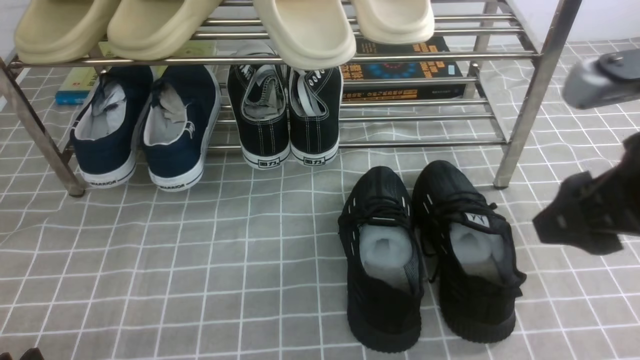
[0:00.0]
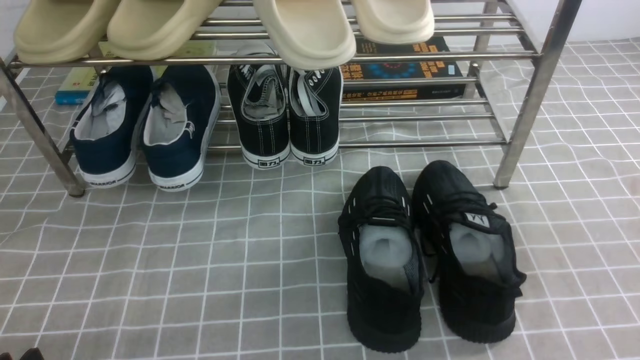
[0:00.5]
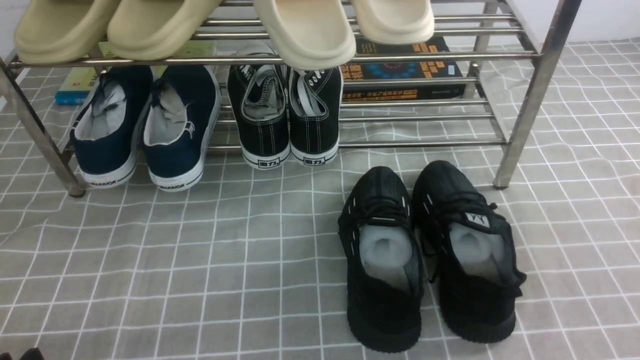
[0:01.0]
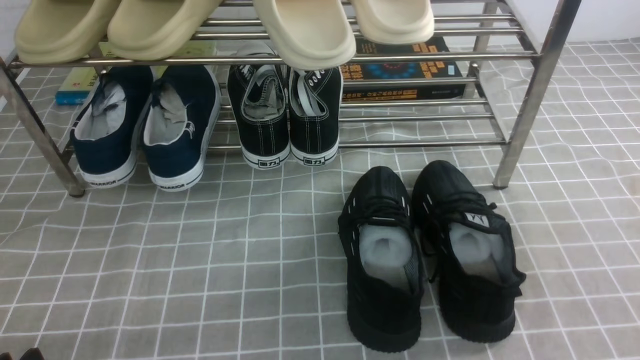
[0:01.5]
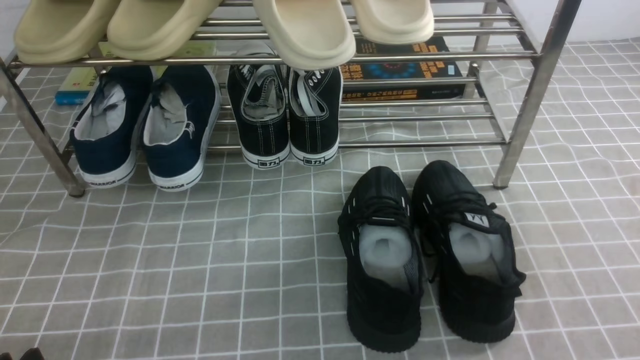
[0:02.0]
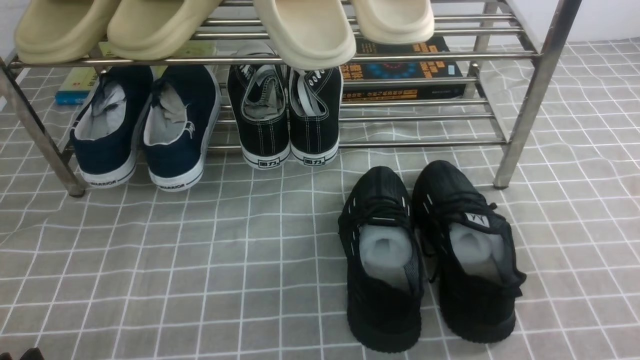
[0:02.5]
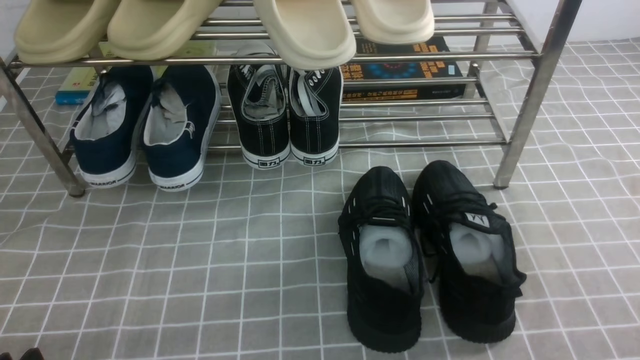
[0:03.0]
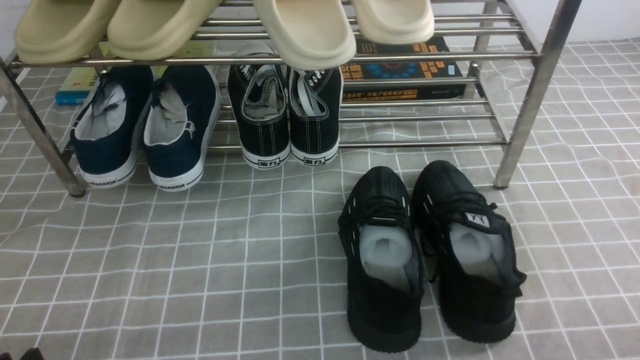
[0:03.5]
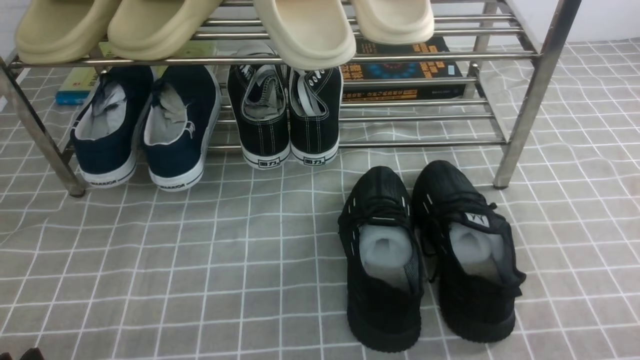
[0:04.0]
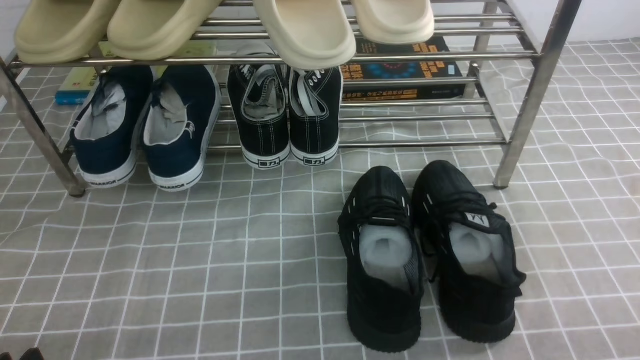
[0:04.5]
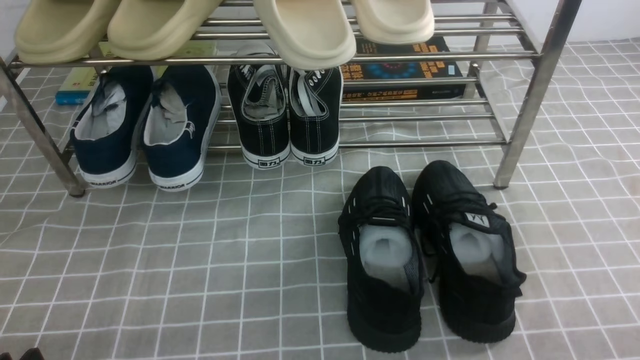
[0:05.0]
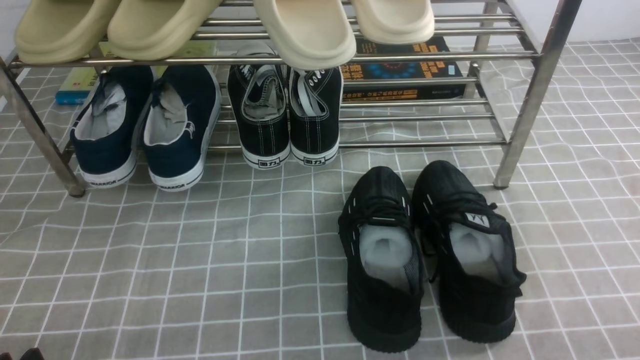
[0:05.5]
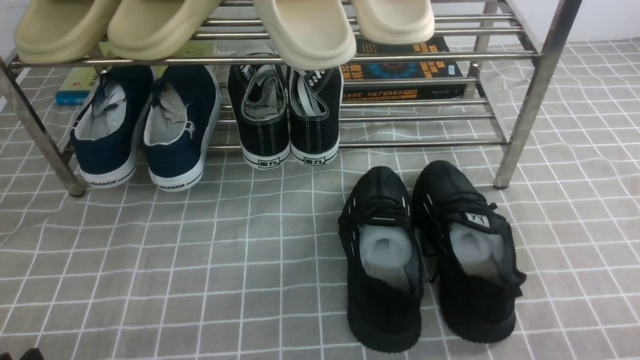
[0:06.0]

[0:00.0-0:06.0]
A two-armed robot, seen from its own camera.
0:00.0 to 0:02.0: The right gripper shifts roughly 20 cm backward and to the right, and closes.
0:04.0 to 0:06.0: Both grippers stay put.

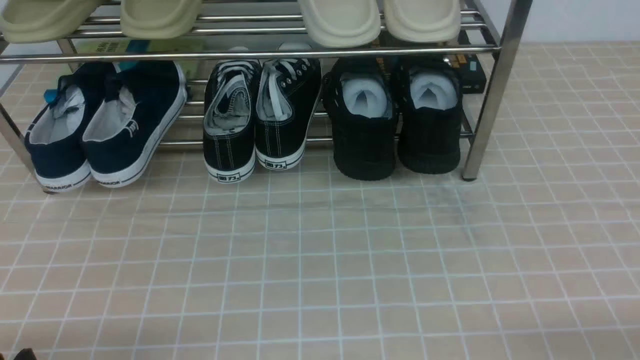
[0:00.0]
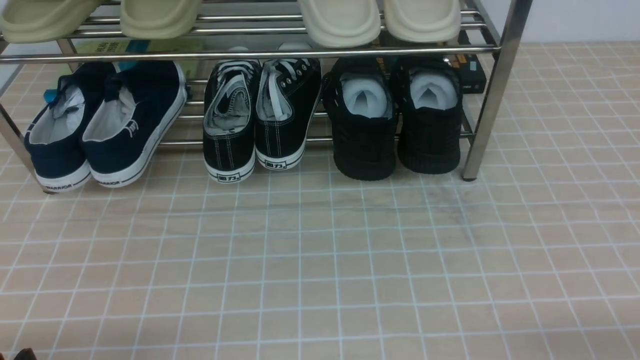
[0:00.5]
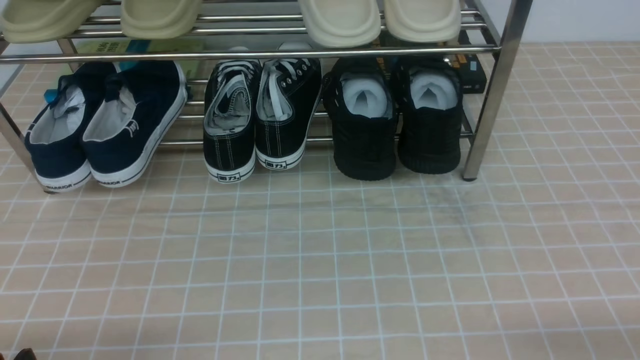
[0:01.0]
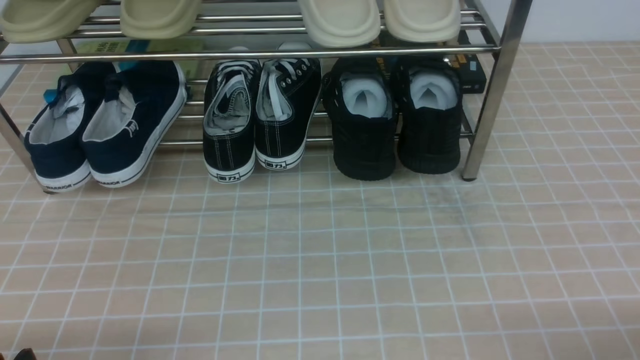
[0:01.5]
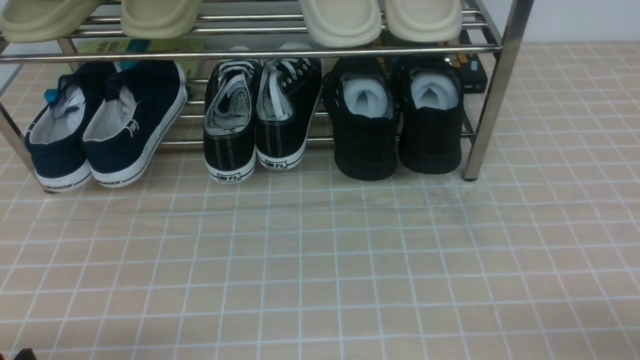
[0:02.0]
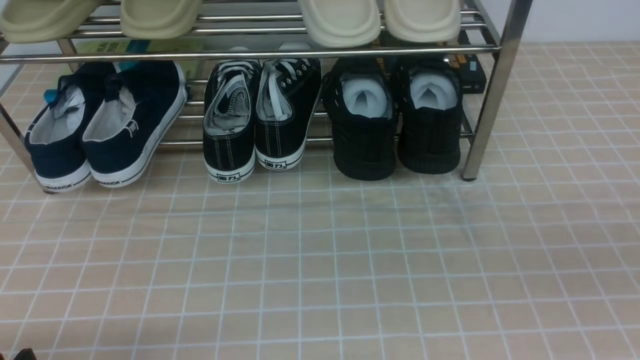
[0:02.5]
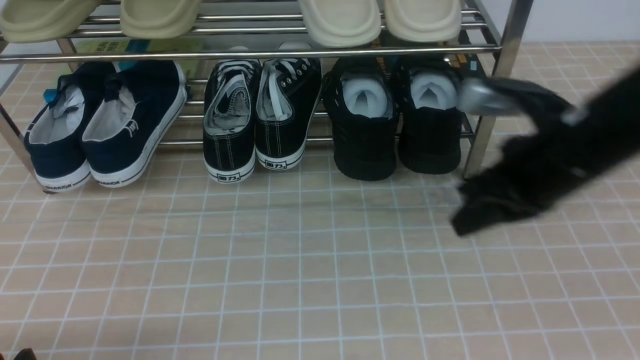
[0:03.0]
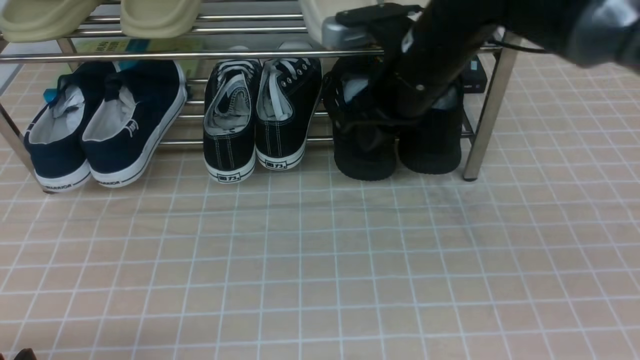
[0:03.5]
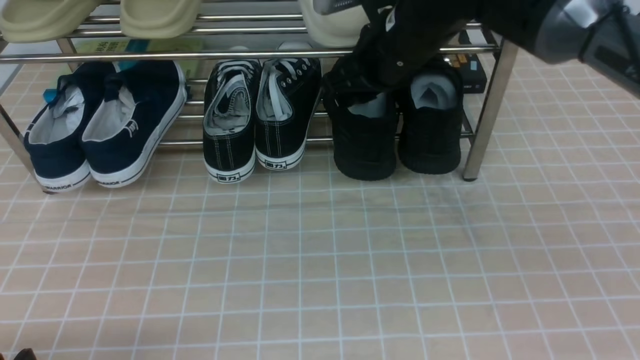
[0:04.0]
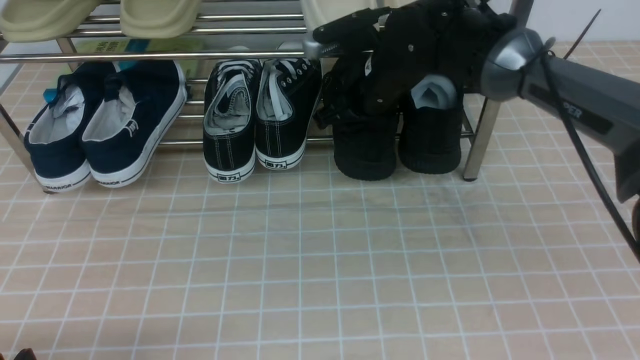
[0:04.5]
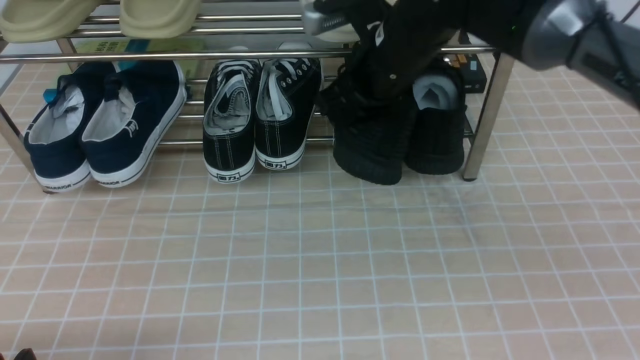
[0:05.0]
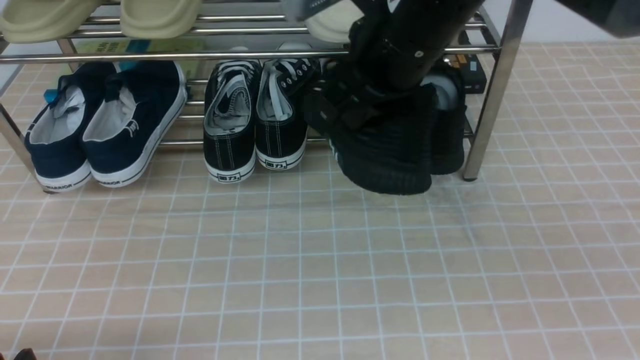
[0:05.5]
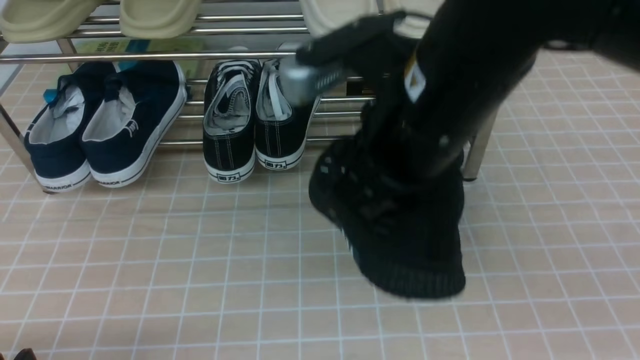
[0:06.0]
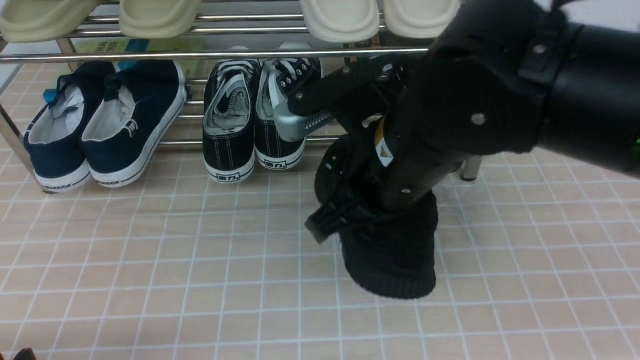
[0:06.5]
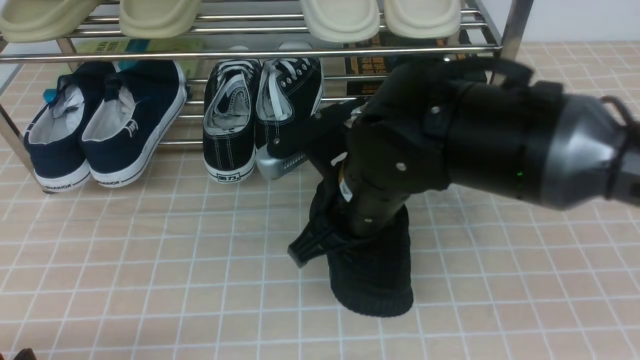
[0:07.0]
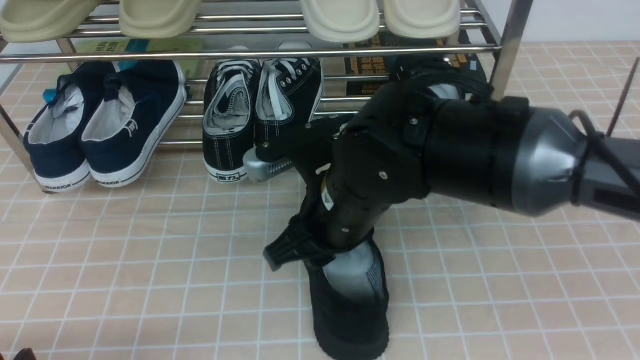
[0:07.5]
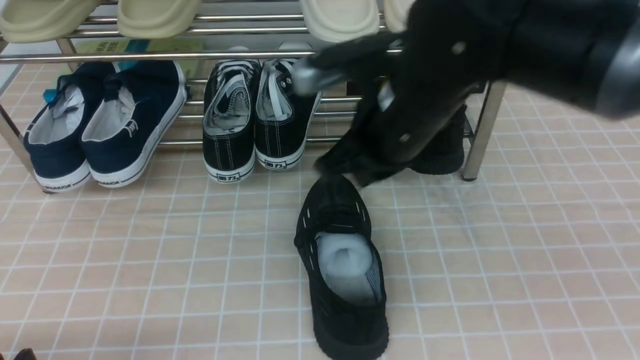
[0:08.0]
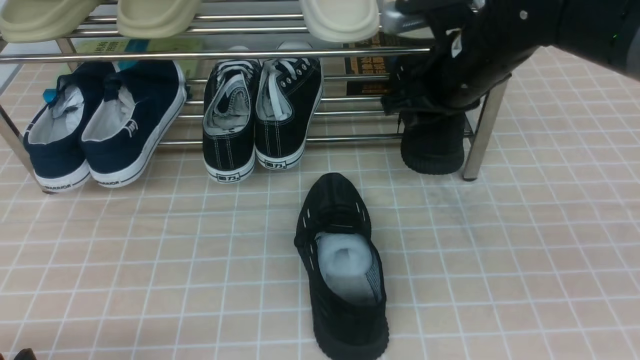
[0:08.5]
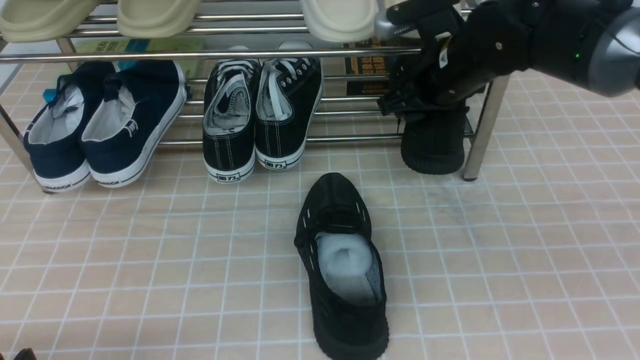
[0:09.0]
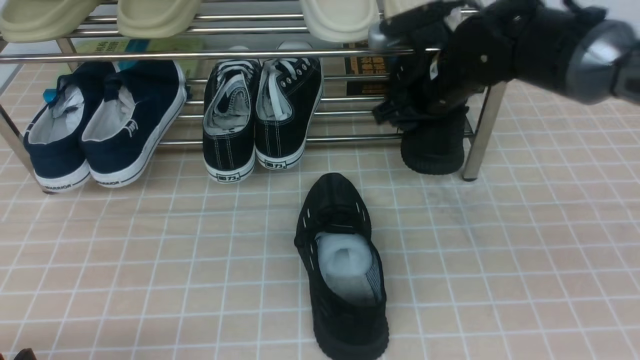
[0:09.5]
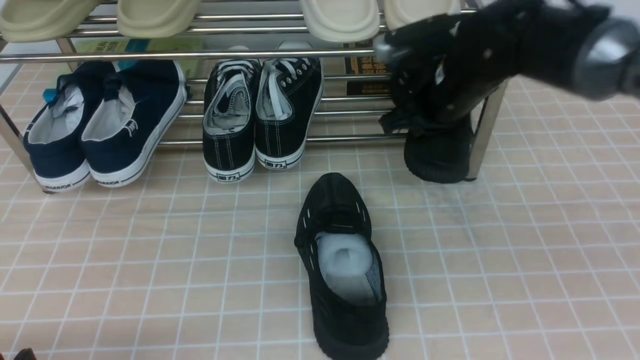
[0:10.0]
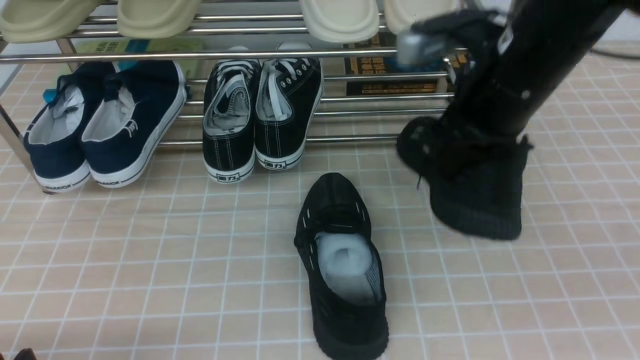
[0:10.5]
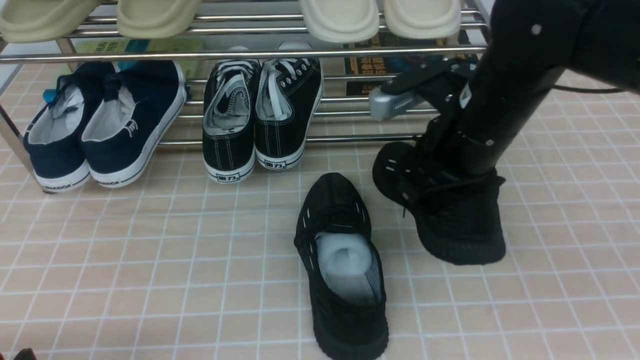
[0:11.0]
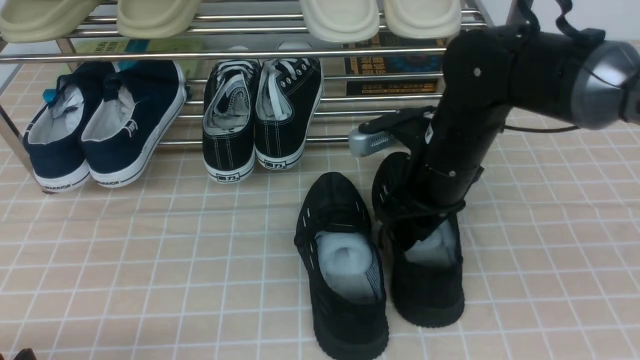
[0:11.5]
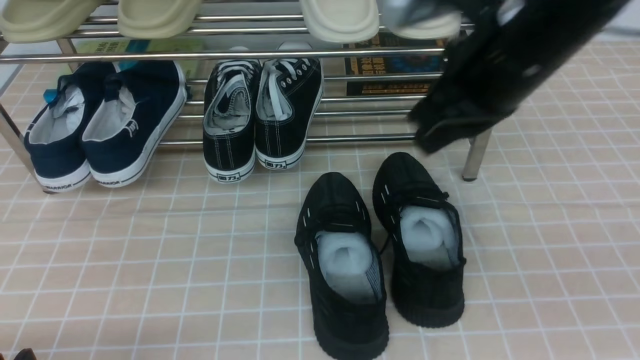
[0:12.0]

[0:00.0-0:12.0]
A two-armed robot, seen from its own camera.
Step, 0:00.0 to 0:04.5: use the right arm to clamp a shoe on the right side of the shoe rack.
Step, 0:05.0 to 0:07.5: use the right arm to take out the clamped shoe from the shoe rack and put it down.
Step, 0:08.0 to 0:09.5: use the right arm to clamp a shoe on the right side of the shoe rack.
Step, 0:10.0 to 0:11.5: use the right arm to take out the clamped shoe from the shoe rack and put it down.
0:02.0 to 0:04.0: The right gripper is displaced forward and to the left by approximately 40 cm, and closes, then opens again.
0:04.0 to 0:06.0: The right gripper heads backward, covering some 15 cm, and closes its fingers.
0:06.0 to 0:08.0: The right gripper shifts some 10 cm forward and downward, and opens and closes again.
0:08.0 to 0:10.0: The right gripper goes roughly 10 cm forward and to the right, and opens, then closes again.
0:10.0 to 0:12.0: The right gripper goes up and down, roughly 15 cm each way, reversing 2 times, and opens, then closes once more.

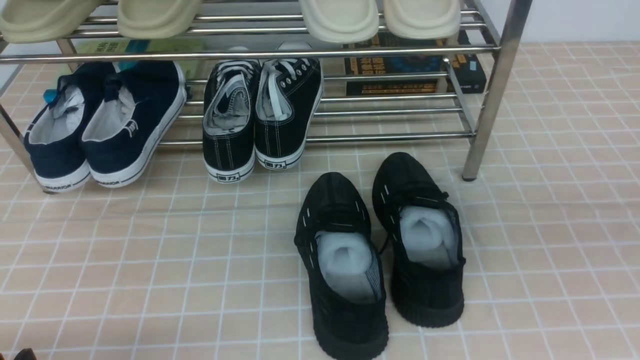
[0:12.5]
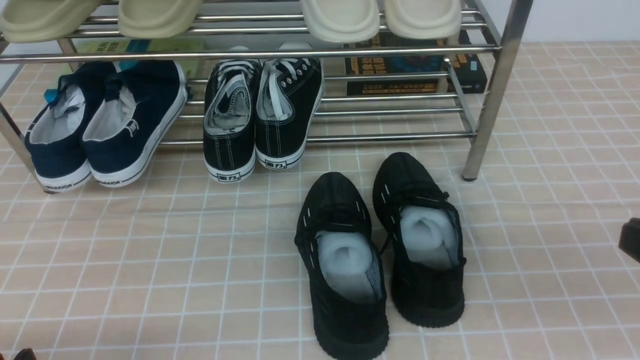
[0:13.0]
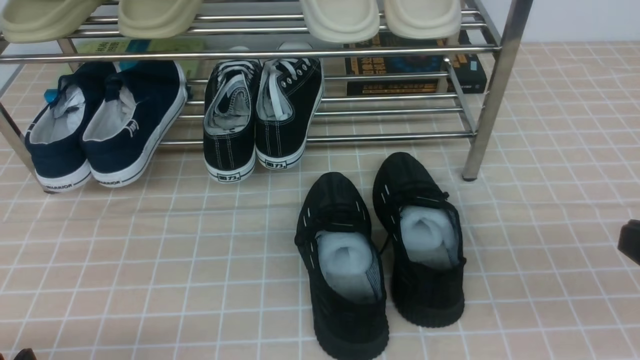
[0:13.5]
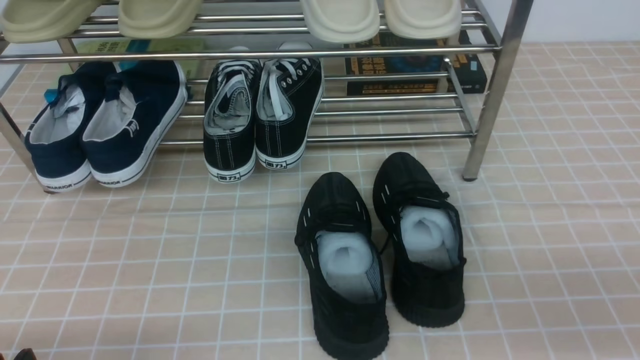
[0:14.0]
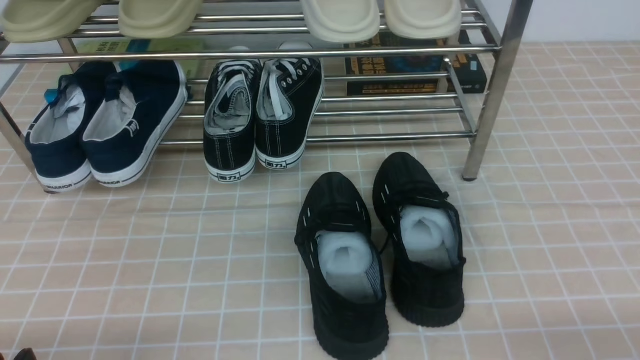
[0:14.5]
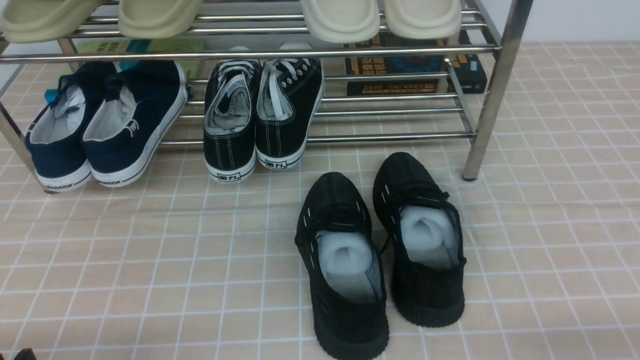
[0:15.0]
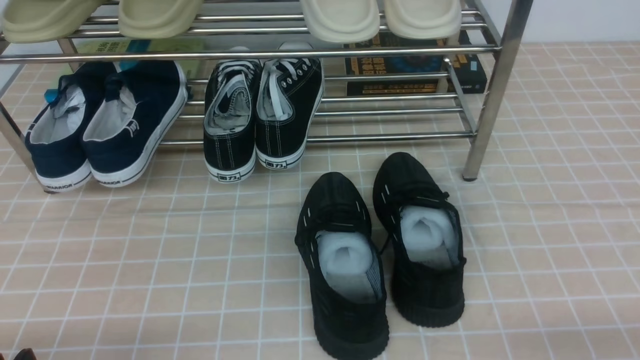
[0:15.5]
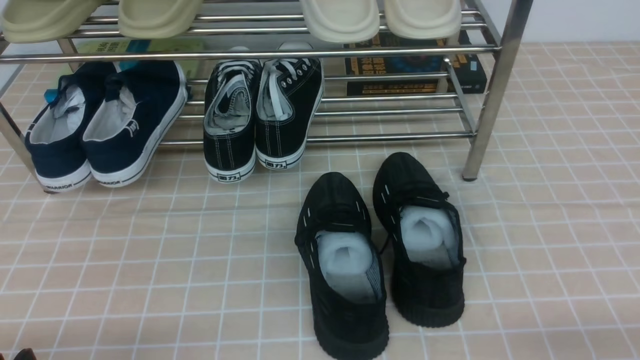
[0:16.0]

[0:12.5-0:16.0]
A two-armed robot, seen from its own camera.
0:12.5 to 0:14.5: The right gripper moves downward, roughly 25 cm.
0:14.5 to 0:16.0: Neither gripper changes place.
